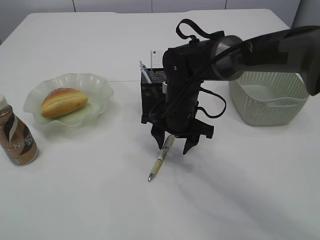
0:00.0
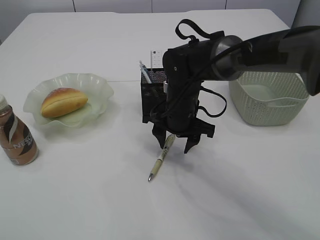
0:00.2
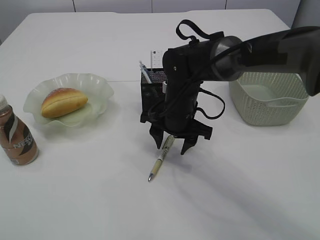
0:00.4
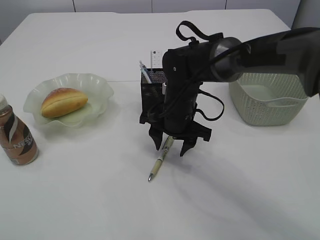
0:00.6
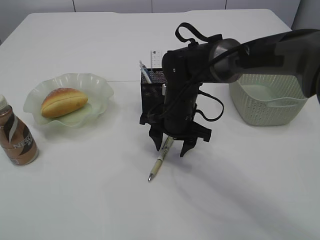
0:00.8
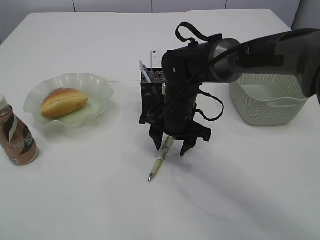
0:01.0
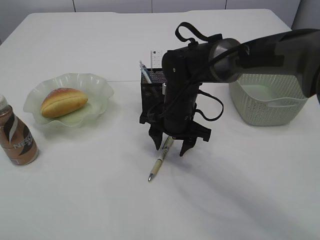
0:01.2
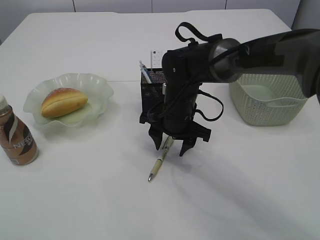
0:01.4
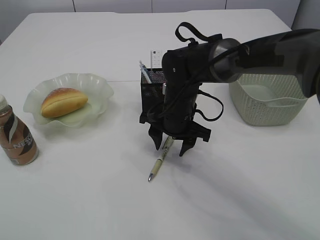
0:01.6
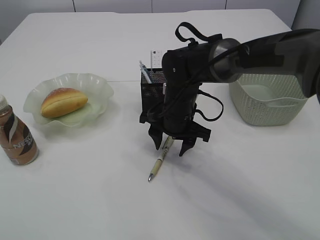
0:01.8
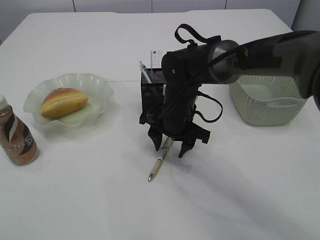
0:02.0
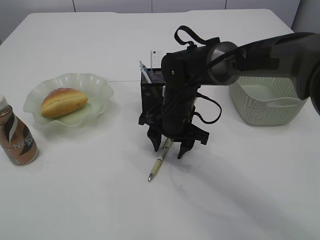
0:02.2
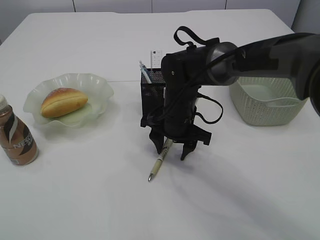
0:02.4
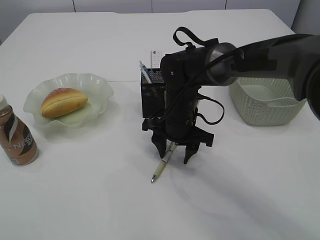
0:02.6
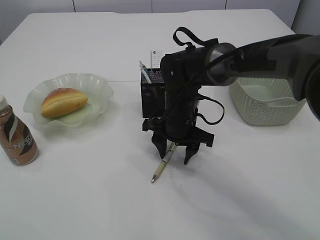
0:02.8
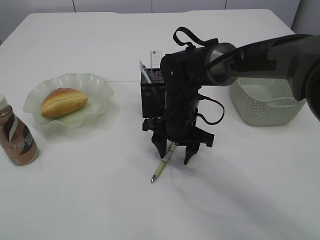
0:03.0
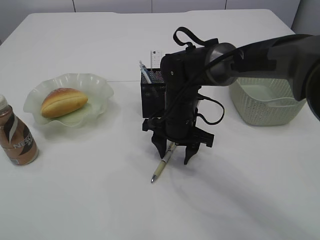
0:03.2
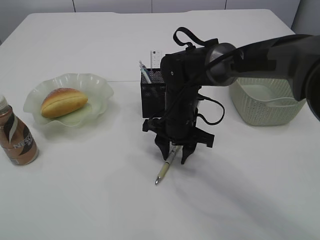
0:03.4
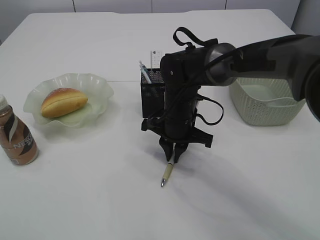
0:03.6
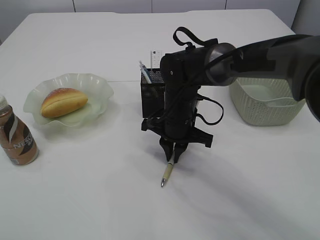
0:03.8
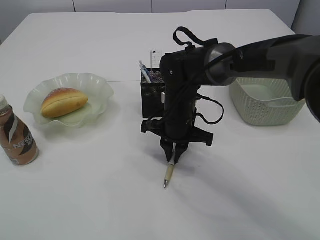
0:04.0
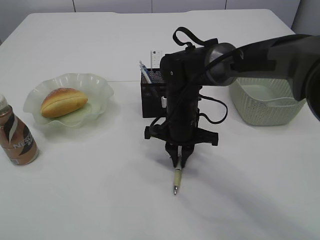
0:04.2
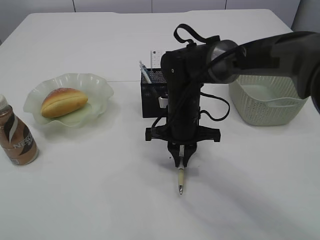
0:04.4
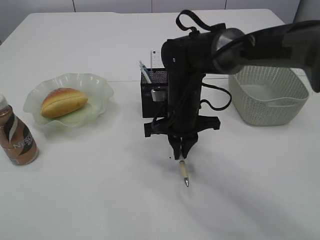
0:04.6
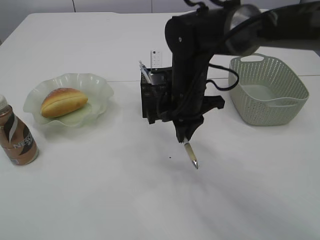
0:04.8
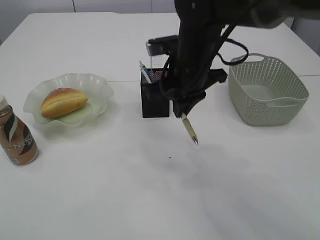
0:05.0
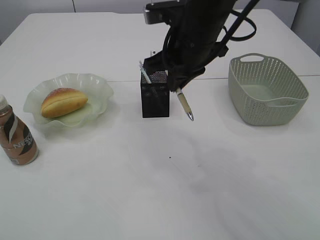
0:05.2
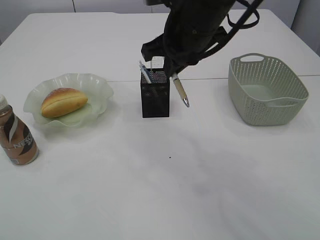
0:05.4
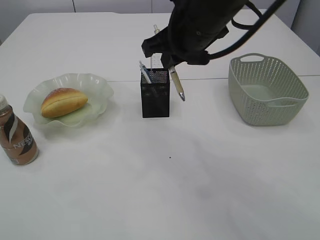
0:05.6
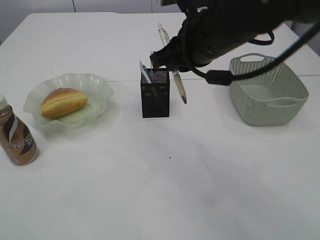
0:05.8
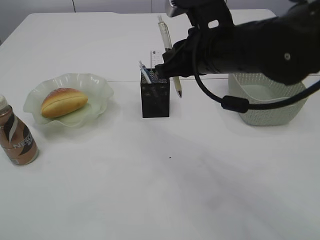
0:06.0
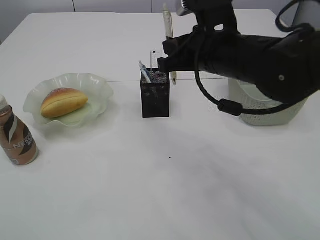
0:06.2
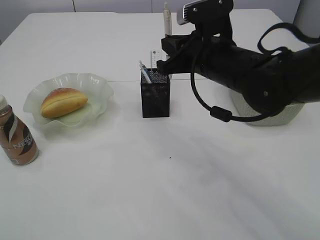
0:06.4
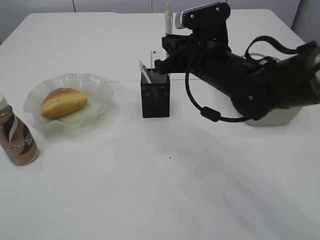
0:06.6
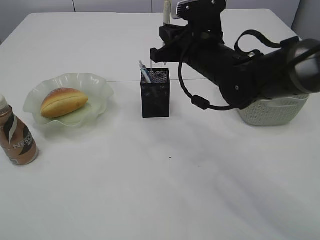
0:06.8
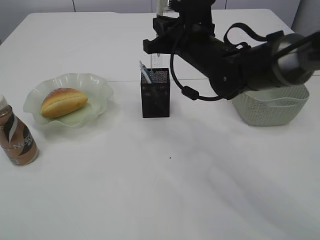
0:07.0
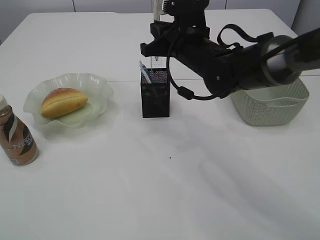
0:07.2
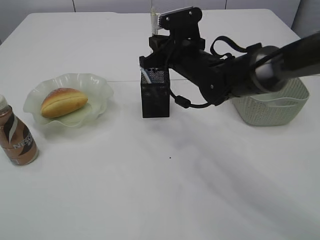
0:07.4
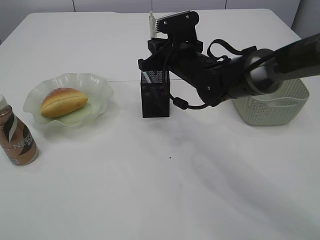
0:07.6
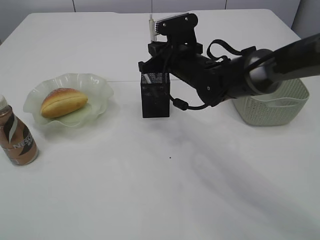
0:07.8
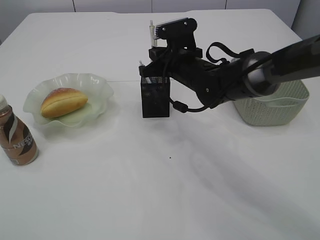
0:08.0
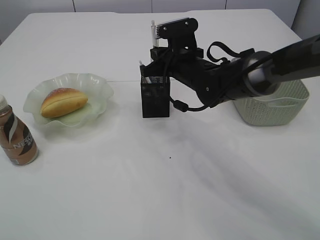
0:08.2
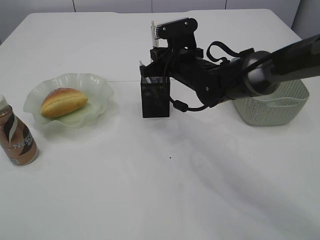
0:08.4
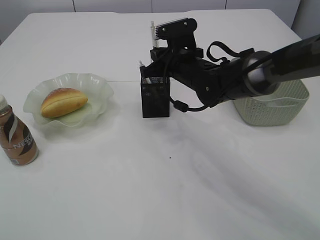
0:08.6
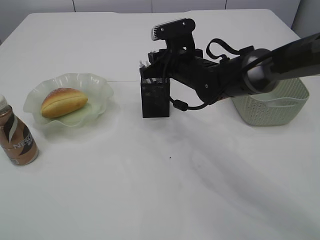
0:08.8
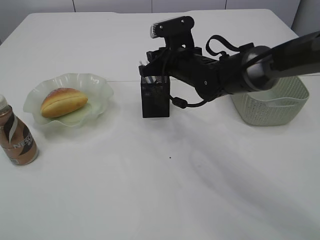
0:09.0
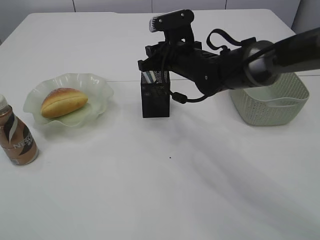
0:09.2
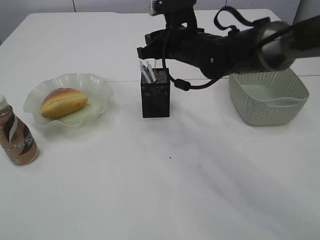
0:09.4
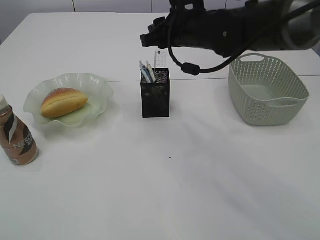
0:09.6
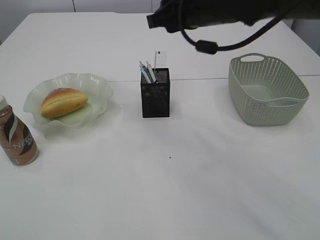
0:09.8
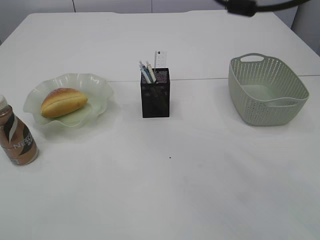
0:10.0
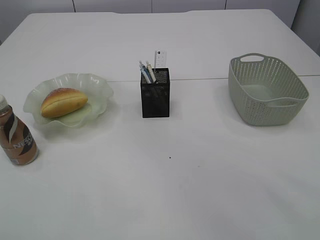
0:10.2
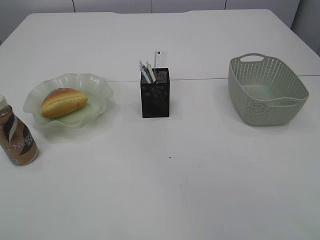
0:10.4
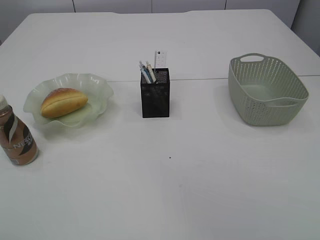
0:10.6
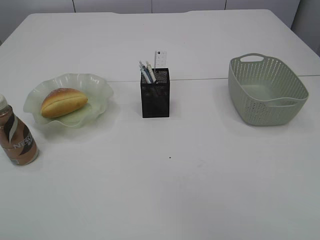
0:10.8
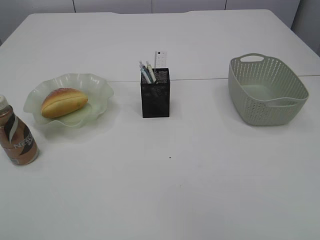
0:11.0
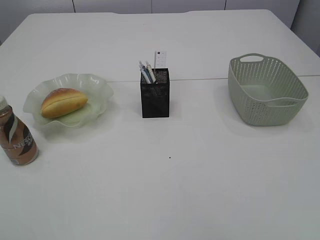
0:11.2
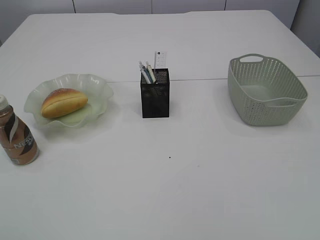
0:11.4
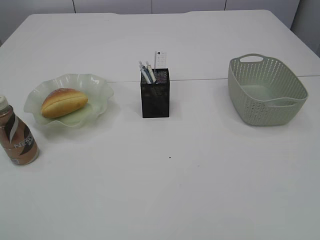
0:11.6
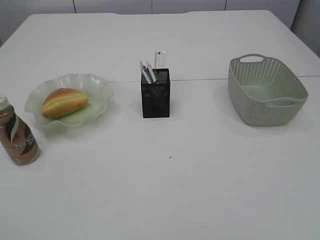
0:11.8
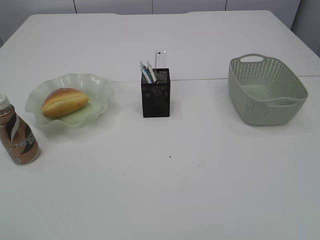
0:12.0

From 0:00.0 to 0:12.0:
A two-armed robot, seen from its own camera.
Step, from 0:00.0 to 0:04.8: Pick up the pen with right arm.
Step, from 0:05.0 to 0:09.4: Place the pen into the pen holder.
From 0:00.0 to 0:01.6: The two grippers keep their place.
From 0:01.6 to 0:03.0: The grippers stay close to where they were, moving slightly.
From 0:03.0 to 0:04.4: The right gripper closes up.
From 0:04.4 to 0:06.0: The right gripper heads upward, covering some 15 cm.
From 0:06.0 to 0:07.6: The right gripper heads forward and downward, covering some 15 cm.
From 0:07.6 to 0:09.0: The right gripper opens up.
From 0:09.0 to 0:10.4: The right gripper goes about 35 cm upward and backward.
From 0:10.4 to 0:12.0: The left gripper travels backward by roughly 20 cm.

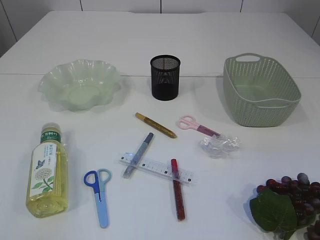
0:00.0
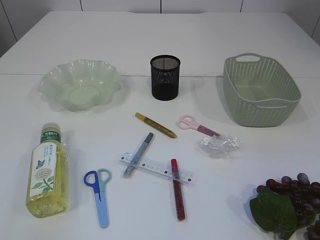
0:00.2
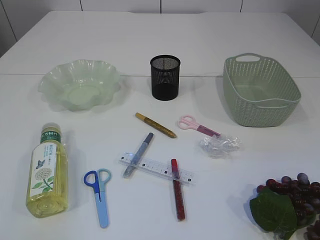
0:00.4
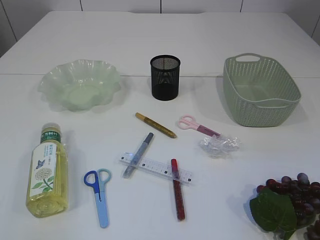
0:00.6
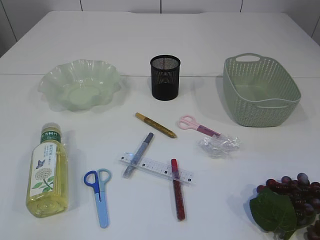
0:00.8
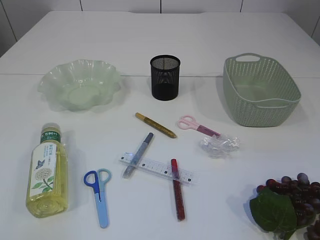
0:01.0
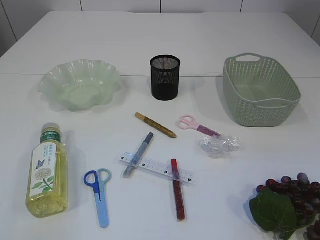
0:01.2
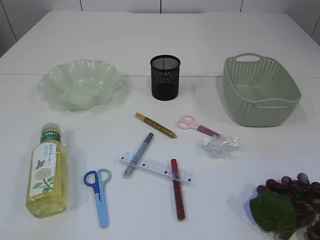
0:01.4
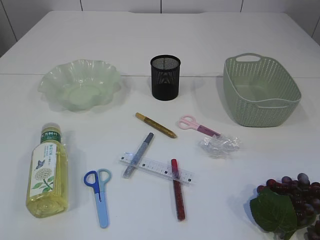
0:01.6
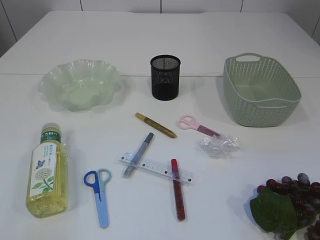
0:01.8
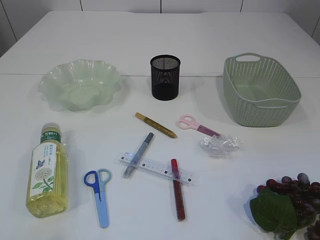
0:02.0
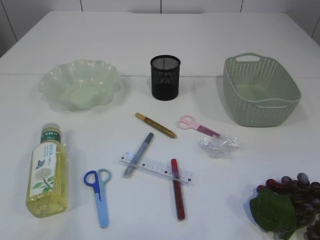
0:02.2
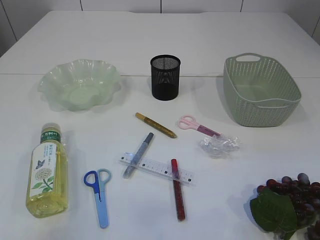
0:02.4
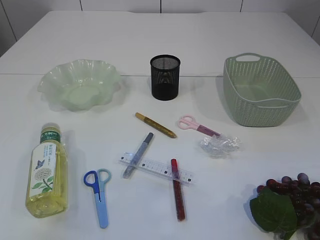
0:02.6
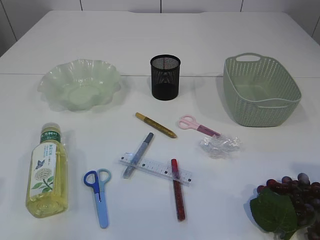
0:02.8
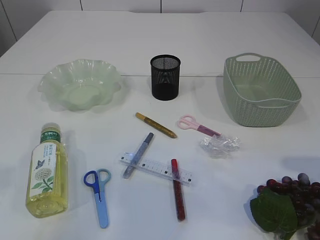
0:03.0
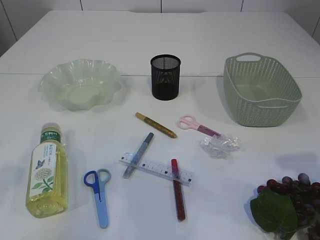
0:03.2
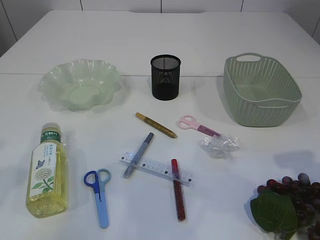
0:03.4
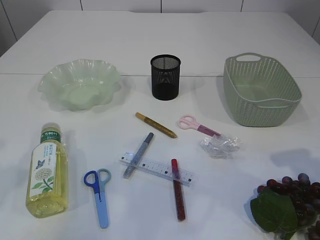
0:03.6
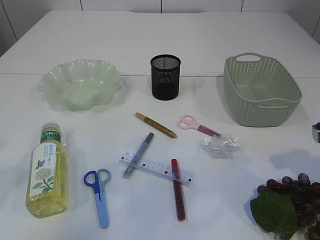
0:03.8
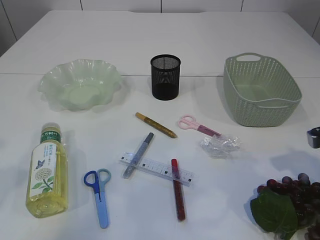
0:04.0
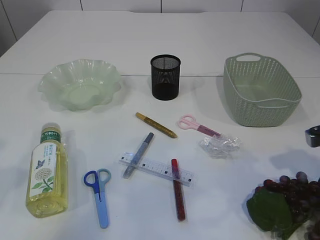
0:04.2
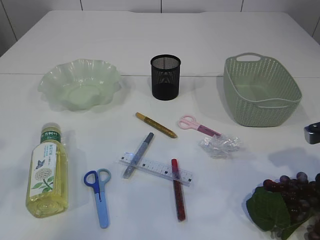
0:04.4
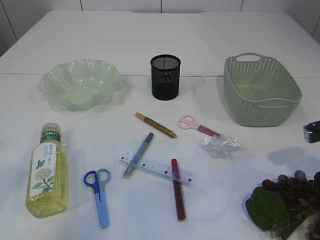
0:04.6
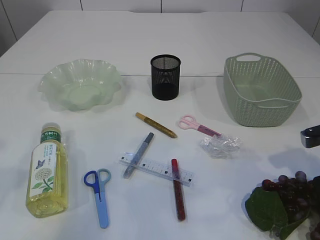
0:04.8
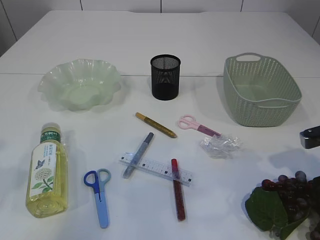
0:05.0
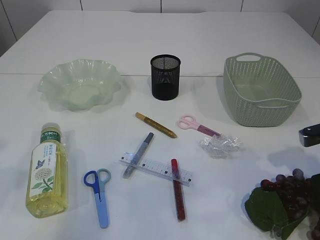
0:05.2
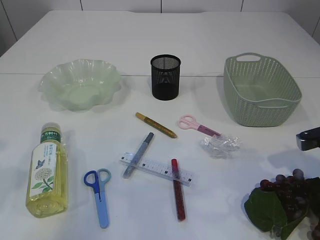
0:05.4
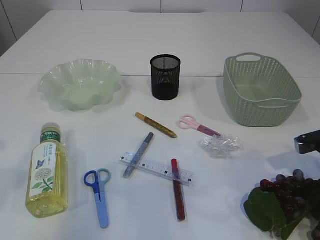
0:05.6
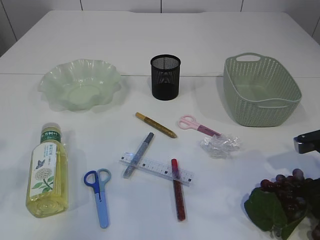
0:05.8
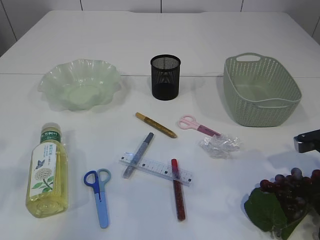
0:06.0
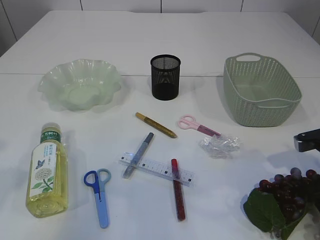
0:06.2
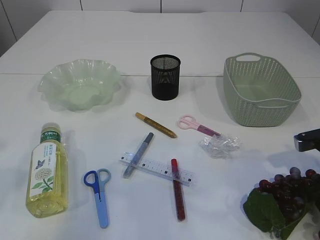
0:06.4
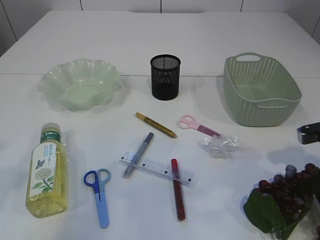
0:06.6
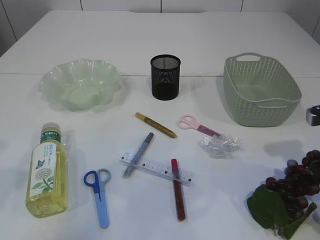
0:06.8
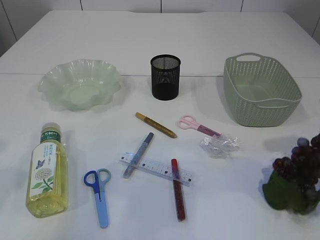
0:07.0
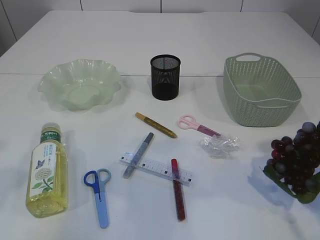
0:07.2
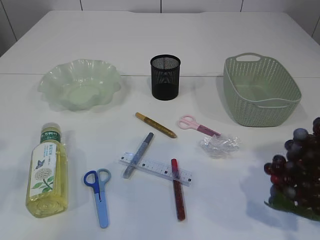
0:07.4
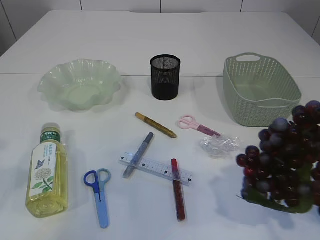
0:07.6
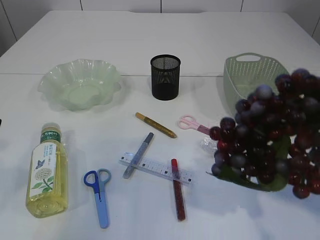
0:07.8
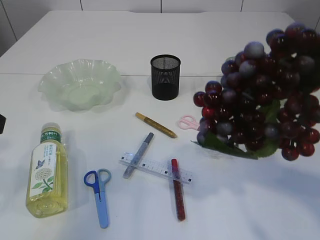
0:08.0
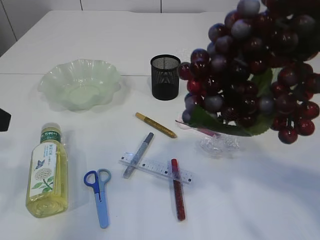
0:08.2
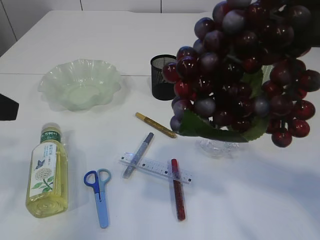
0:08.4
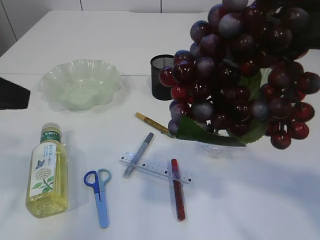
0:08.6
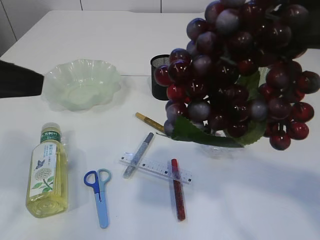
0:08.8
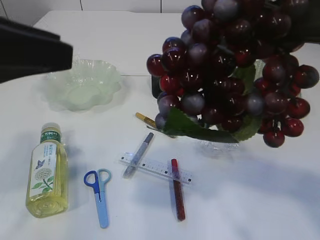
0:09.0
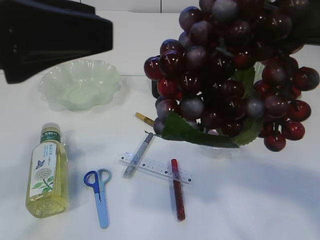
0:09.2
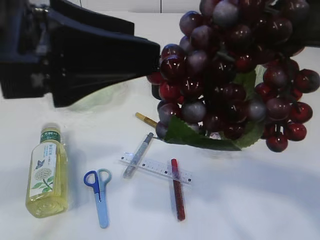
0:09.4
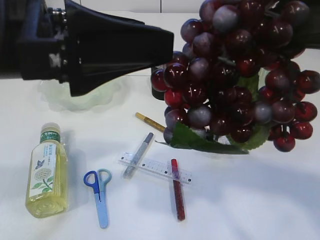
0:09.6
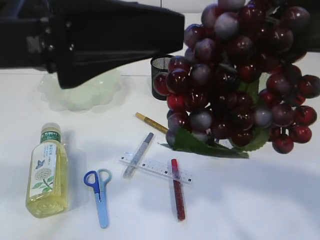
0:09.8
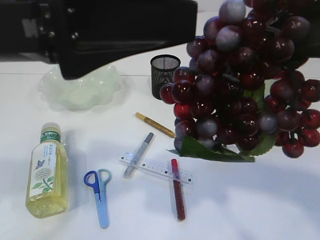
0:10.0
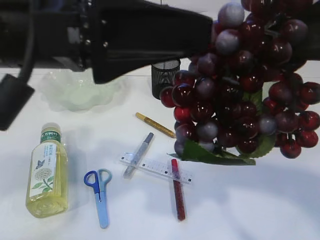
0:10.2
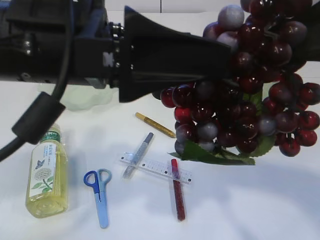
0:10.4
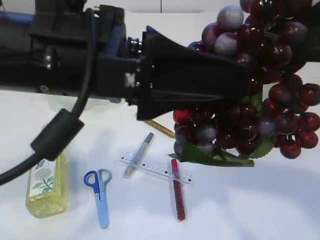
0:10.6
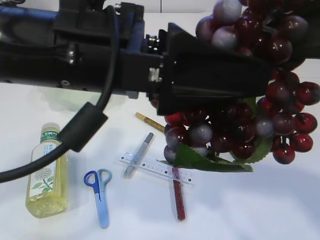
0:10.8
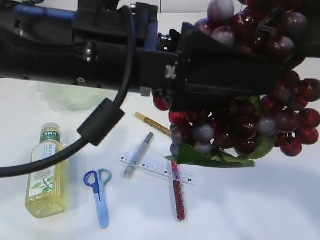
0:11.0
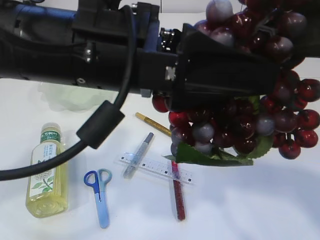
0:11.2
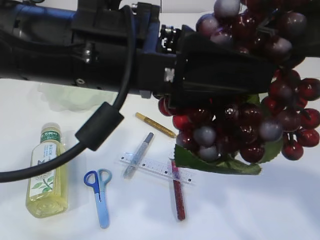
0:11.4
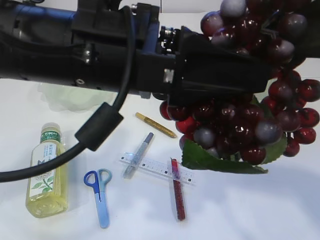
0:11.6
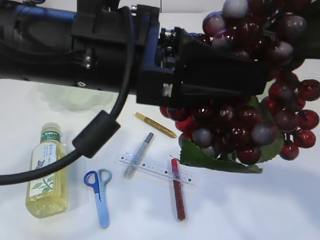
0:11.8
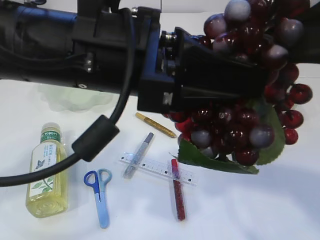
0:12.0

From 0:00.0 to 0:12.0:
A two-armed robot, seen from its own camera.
Step, from 0:00.0 to 0:07.4: Pick up the grapes.
From 0:01.6 to 0:03.0: The grippers both shift forward by roughly 15 cm.
From 0:03.0 to 0:04.4: The right gripper travels downward and forward by some 15 cm.
From 0:04.4 to 0:06.0: The right gripper closes its fingers.
From 0:06.0 to 0:07.6: The right gripper goes approximately 20 cm upward and backward.
From 0:07.6 to 0:09.0: The left gripper moves to the right, roughly 5 cm. The right gripper travels upward and to the left by some 10 cm.
From 0:09.0 to 0:10.4: The left gripper is displaced to the right by some 10 cm, and opens up.
From 0:10.4 to 0:12.0: The right gripper opens up. Meanwhile the left gripper closes up.
